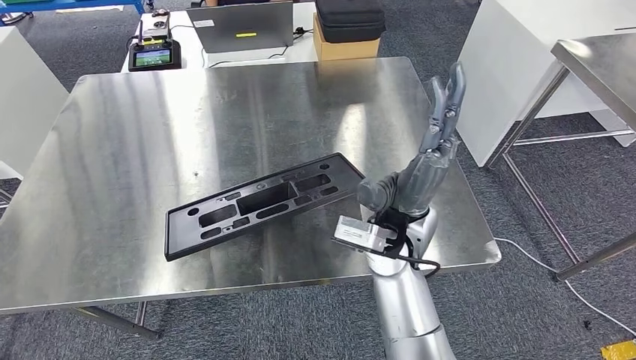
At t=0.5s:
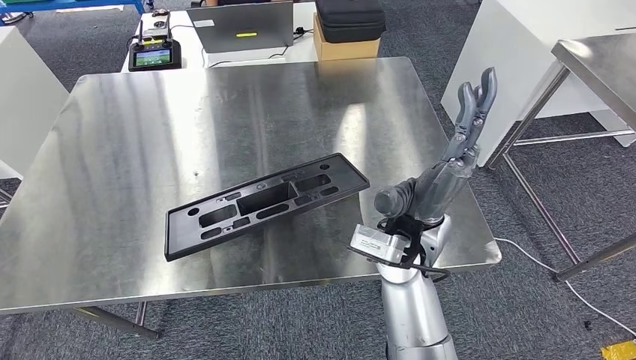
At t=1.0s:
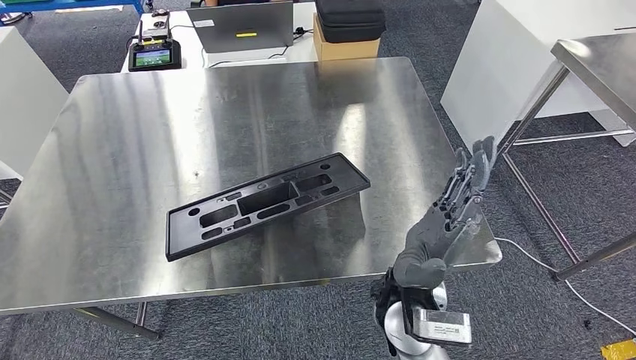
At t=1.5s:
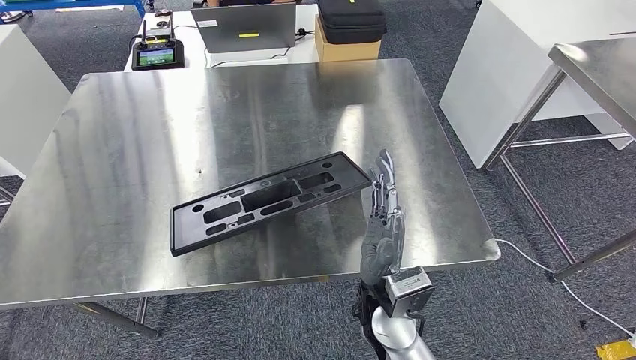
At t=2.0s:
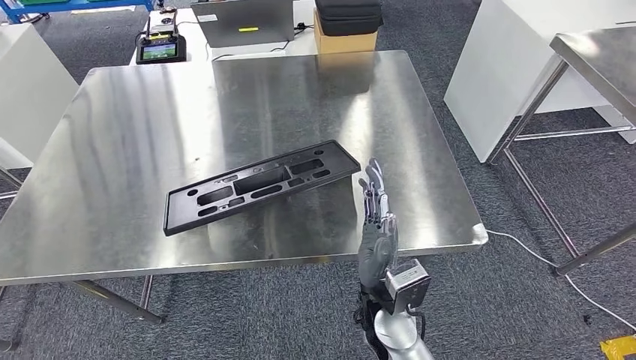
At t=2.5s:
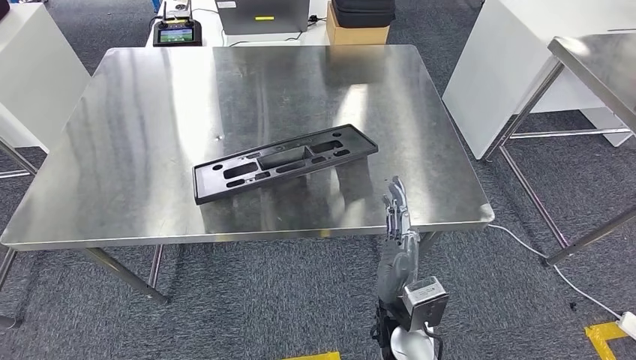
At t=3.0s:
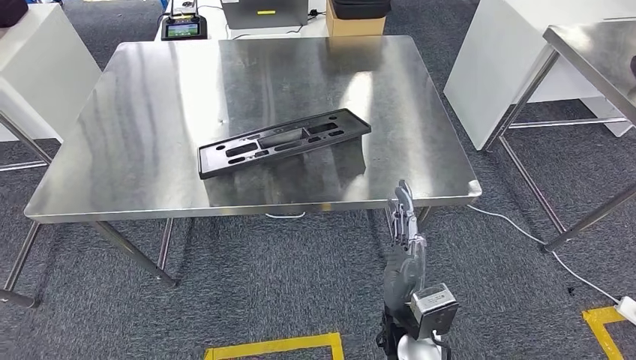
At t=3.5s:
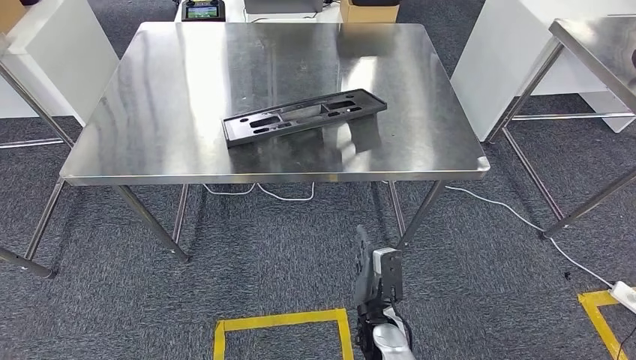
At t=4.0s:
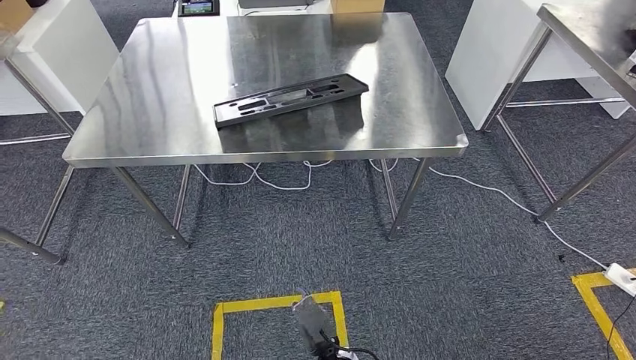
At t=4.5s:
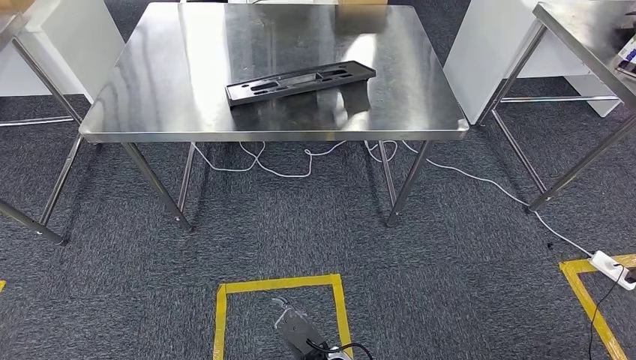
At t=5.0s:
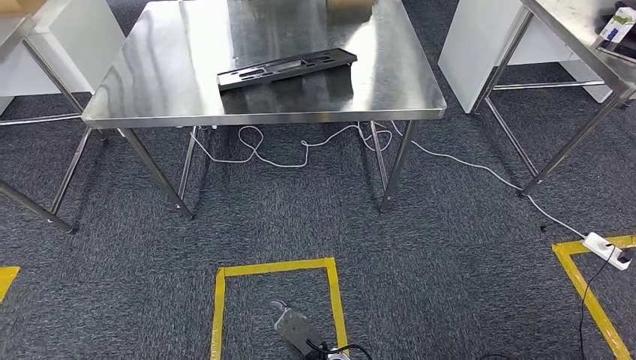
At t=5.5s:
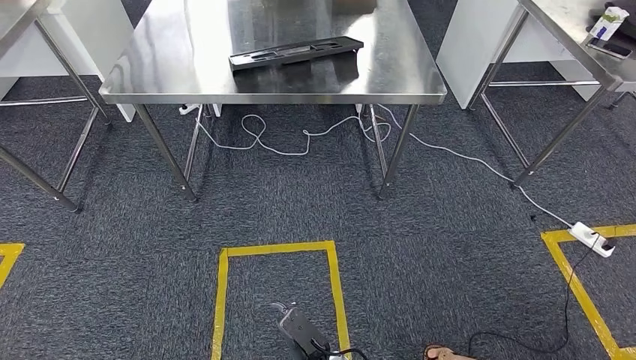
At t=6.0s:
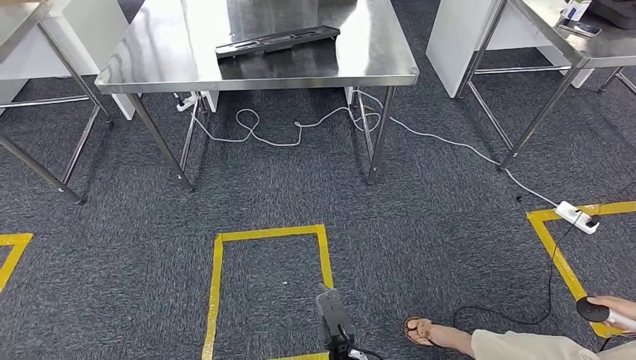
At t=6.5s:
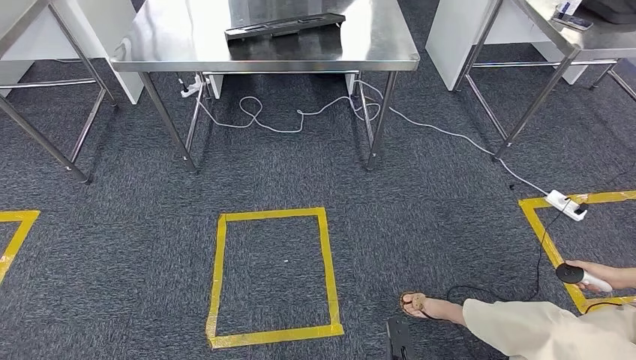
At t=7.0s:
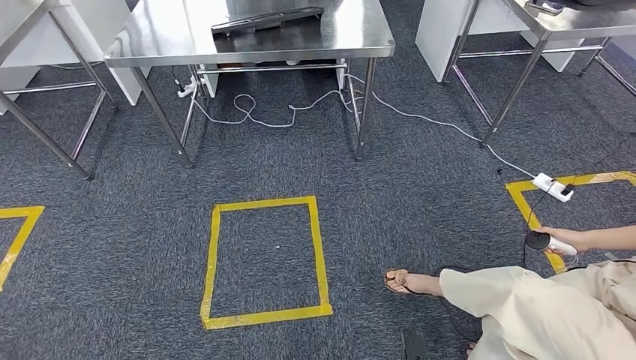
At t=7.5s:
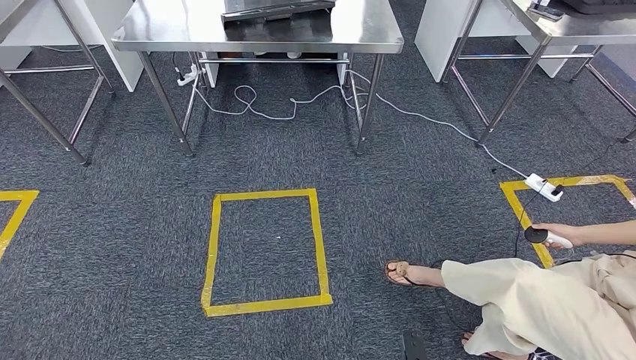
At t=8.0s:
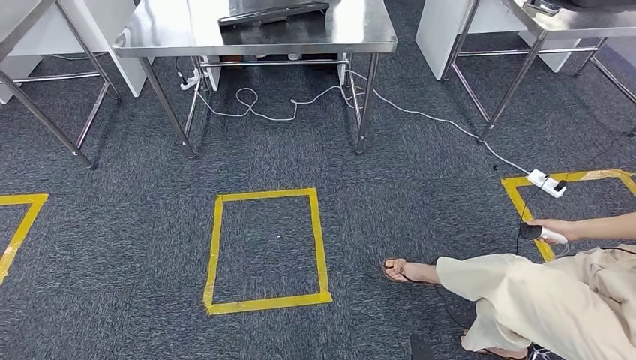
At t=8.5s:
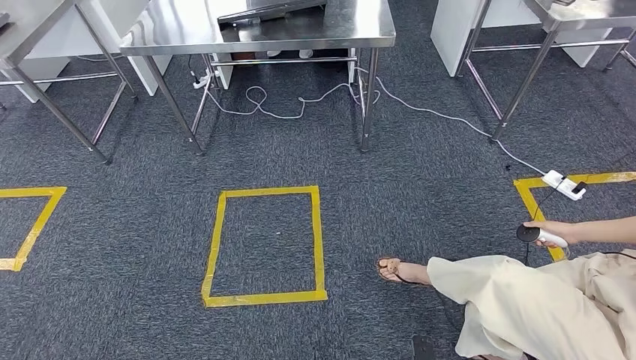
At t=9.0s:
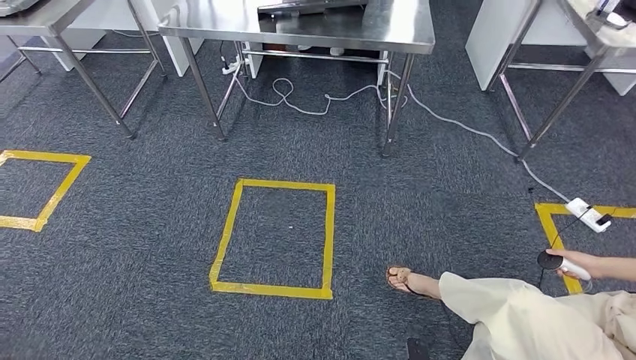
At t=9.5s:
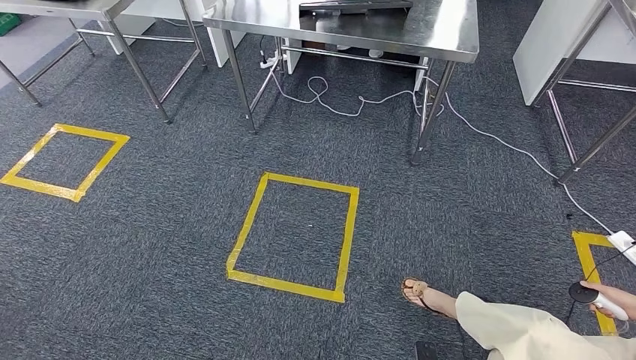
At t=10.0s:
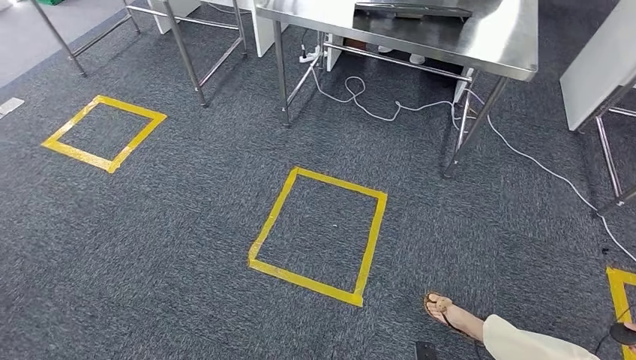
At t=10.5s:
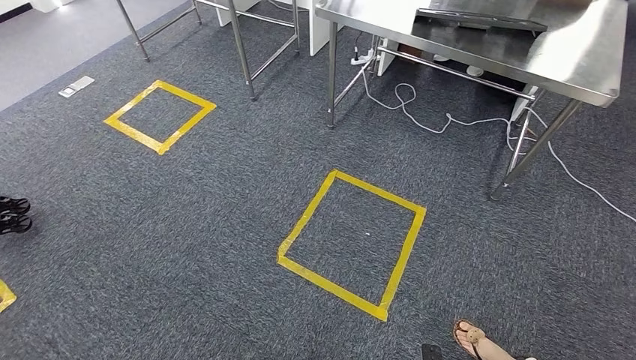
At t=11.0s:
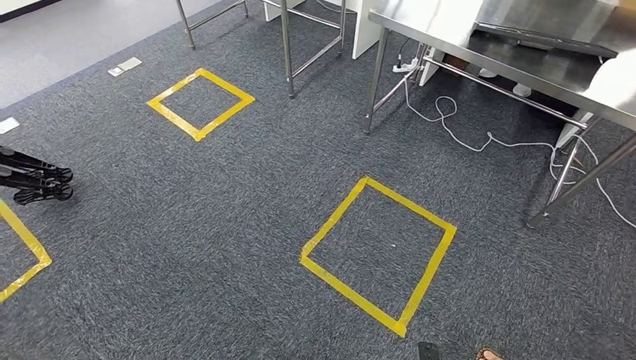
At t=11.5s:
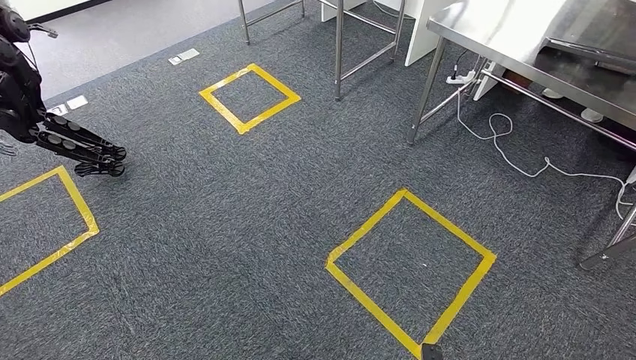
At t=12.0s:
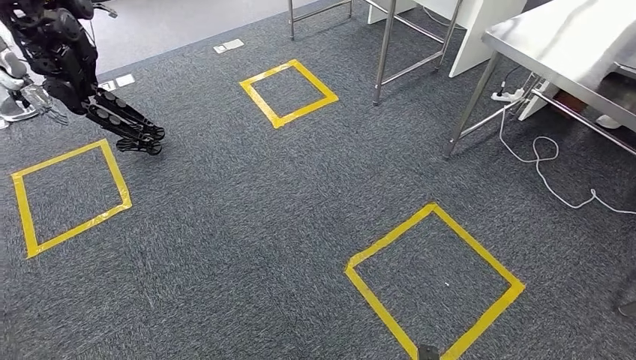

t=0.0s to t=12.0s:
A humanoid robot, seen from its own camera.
Step, t=0.0s to t=5.0s: Insert the large material into the corresponding slot on the workbench.

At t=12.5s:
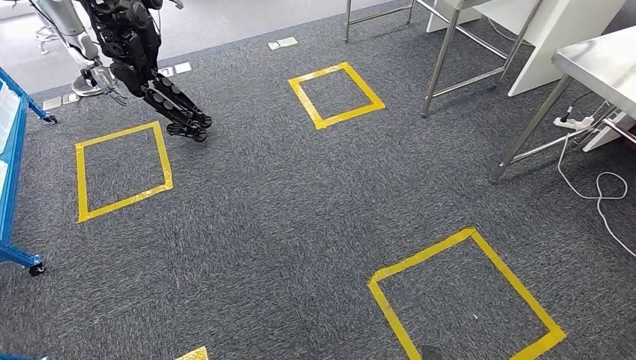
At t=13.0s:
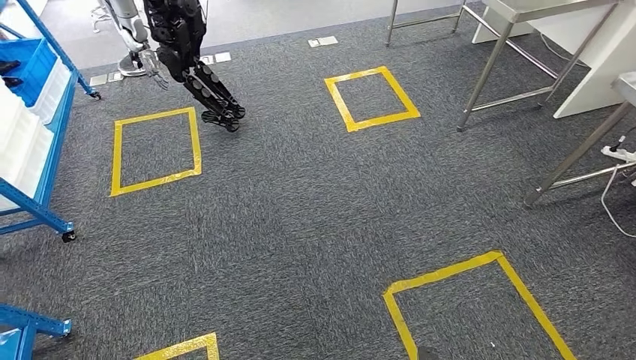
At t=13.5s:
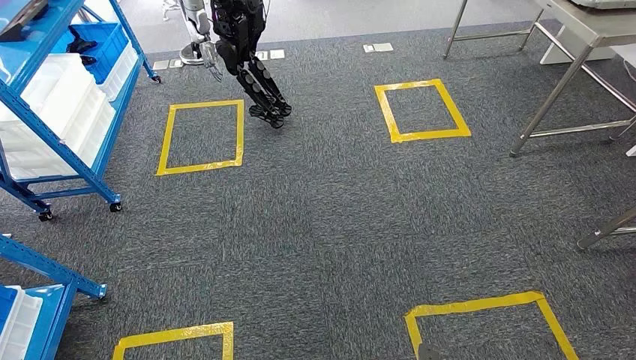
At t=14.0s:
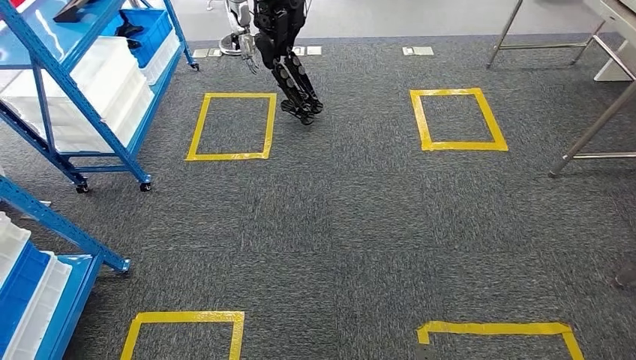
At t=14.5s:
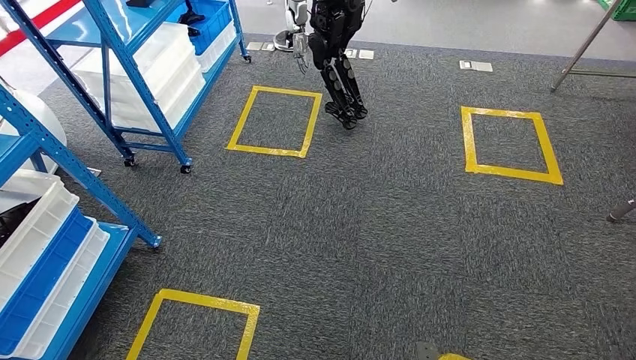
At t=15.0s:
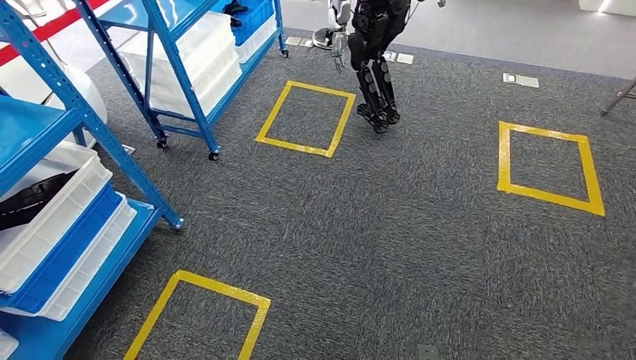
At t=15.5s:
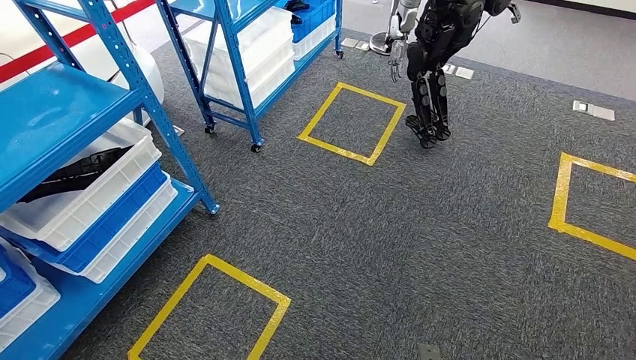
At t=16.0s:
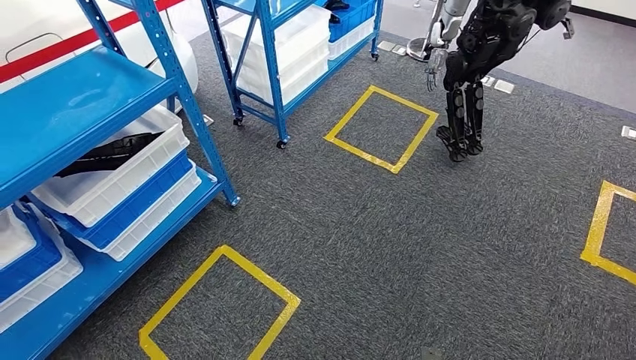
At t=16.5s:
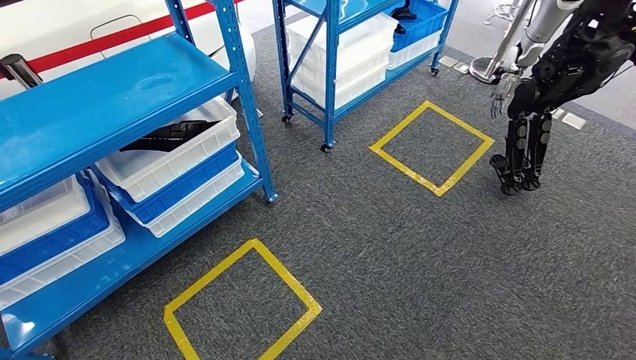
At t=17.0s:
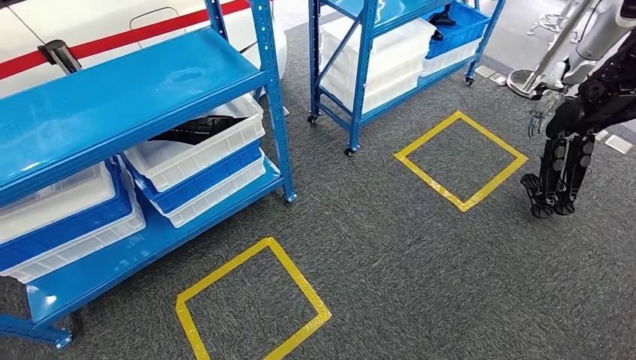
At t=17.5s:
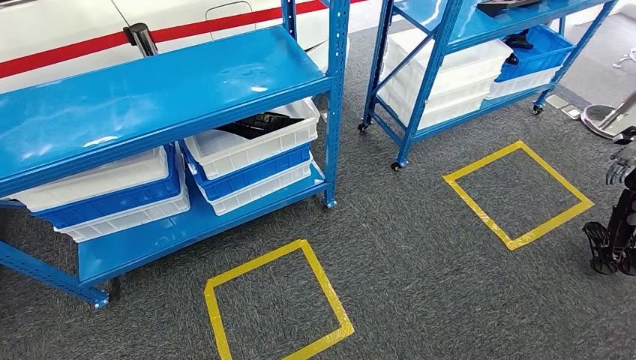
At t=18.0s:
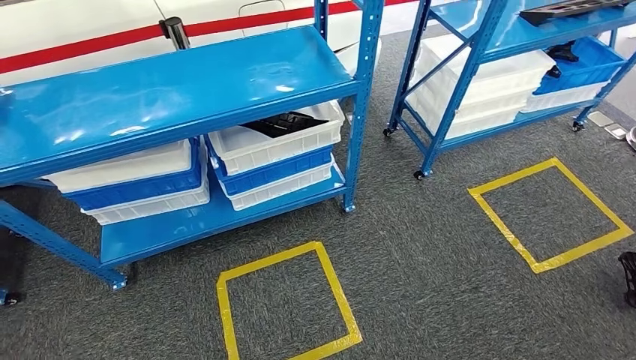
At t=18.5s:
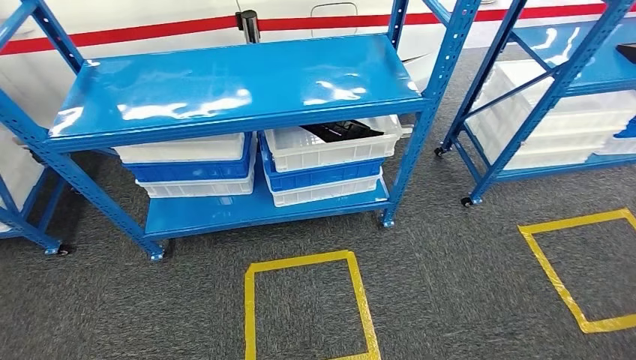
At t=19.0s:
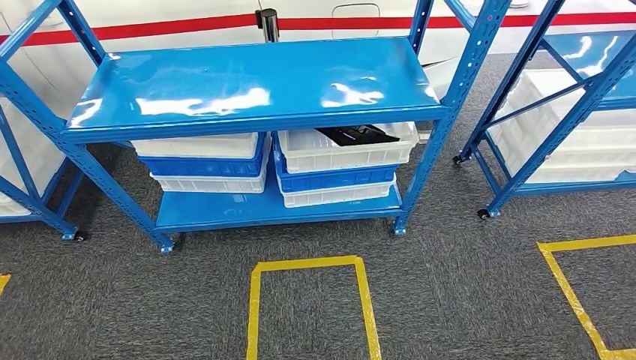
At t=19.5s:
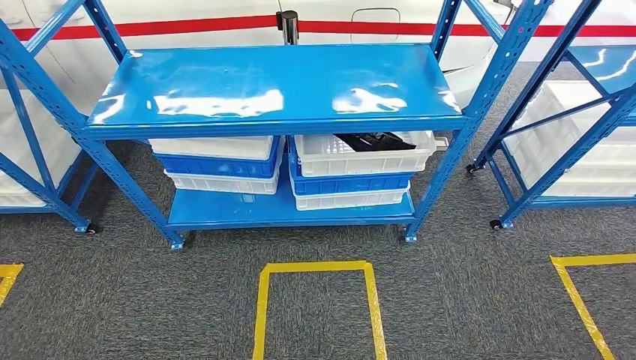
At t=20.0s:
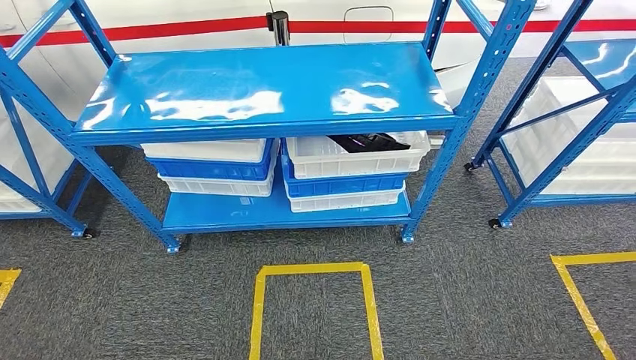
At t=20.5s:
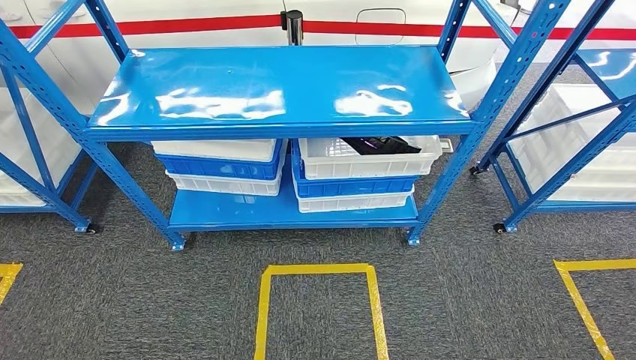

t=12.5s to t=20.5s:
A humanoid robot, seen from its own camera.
Step, t=12.5s to t=20.5s: Move to the initial position of the shelf.
